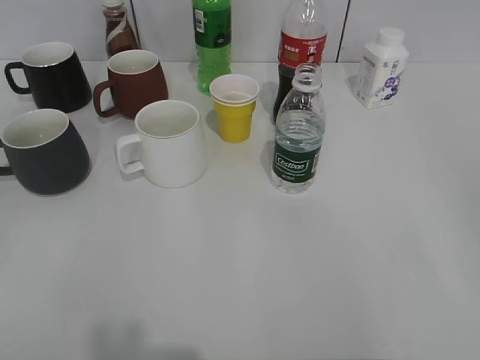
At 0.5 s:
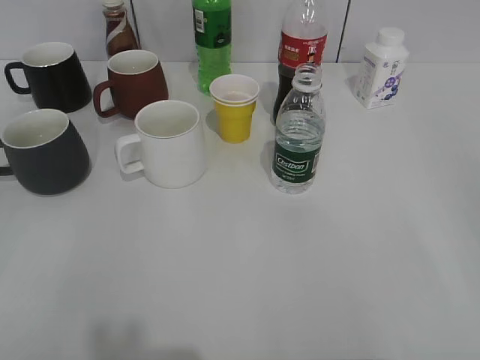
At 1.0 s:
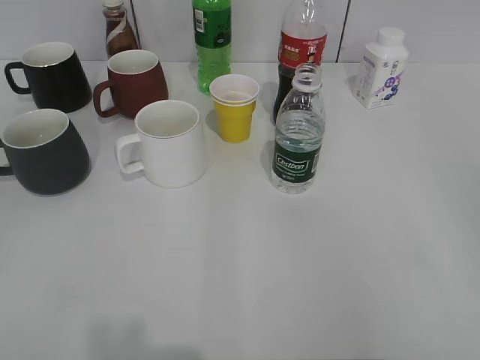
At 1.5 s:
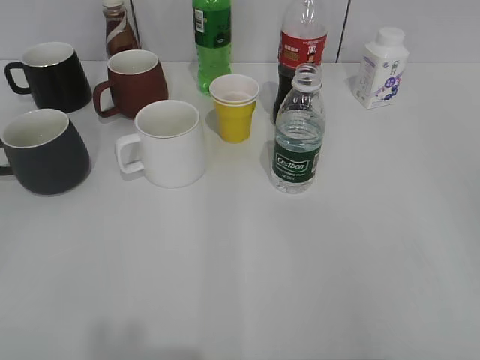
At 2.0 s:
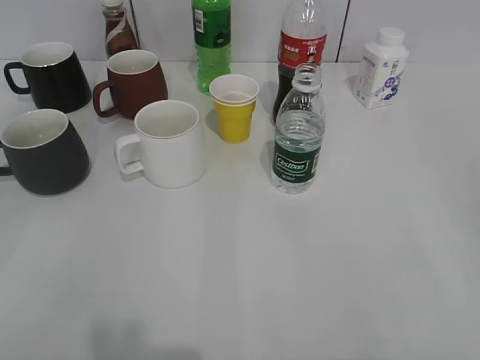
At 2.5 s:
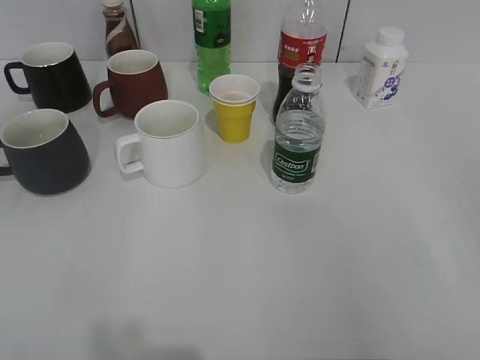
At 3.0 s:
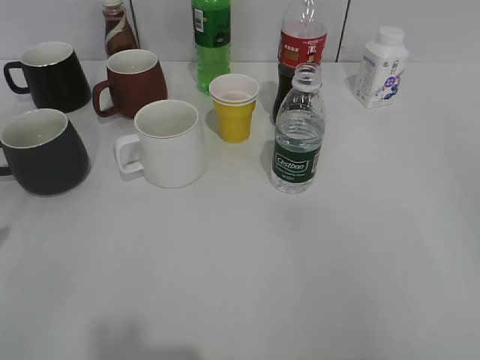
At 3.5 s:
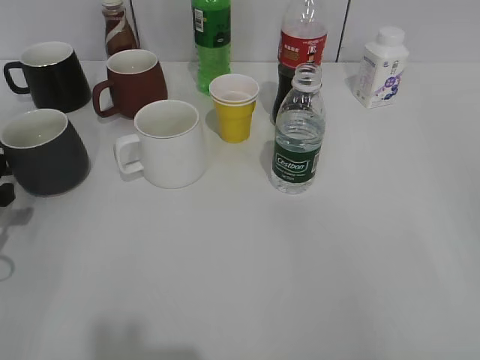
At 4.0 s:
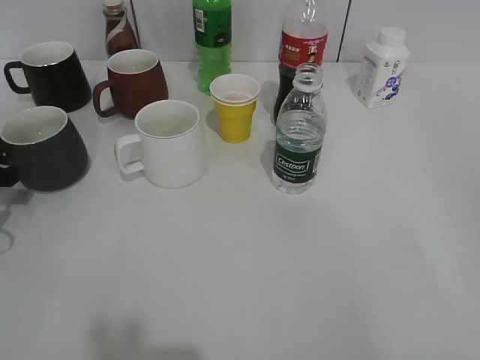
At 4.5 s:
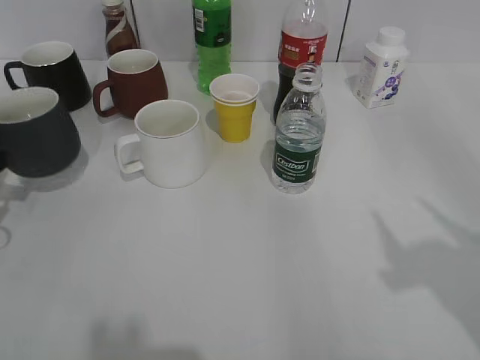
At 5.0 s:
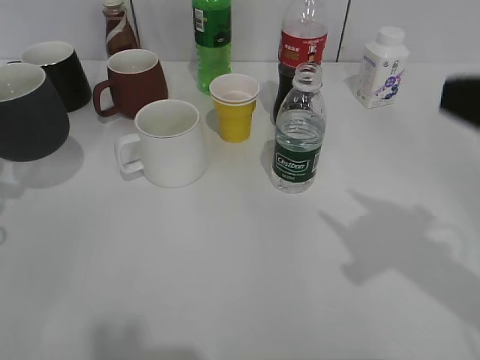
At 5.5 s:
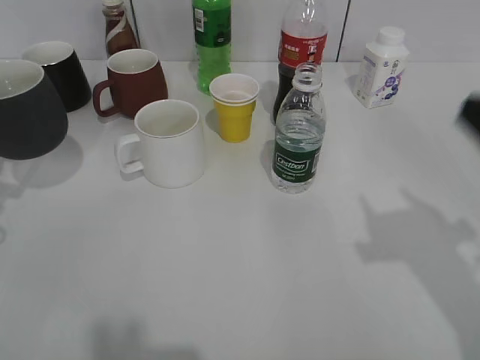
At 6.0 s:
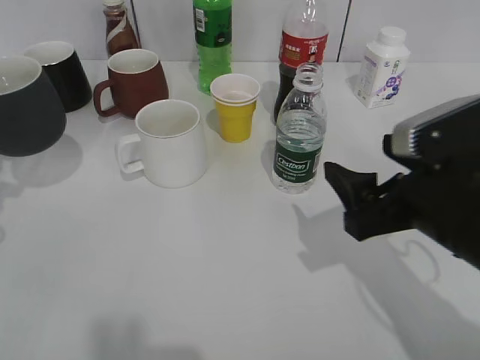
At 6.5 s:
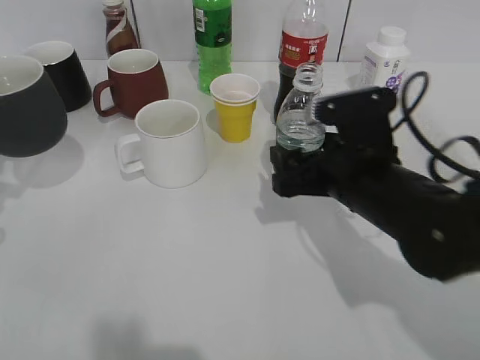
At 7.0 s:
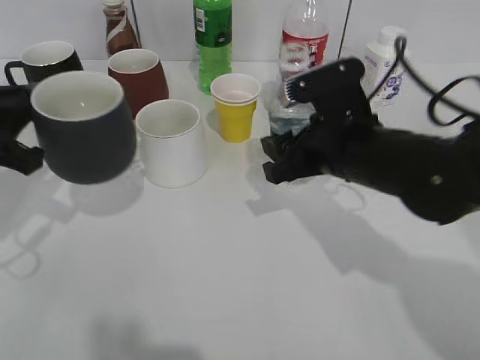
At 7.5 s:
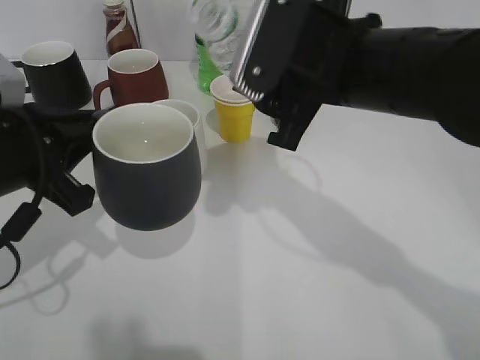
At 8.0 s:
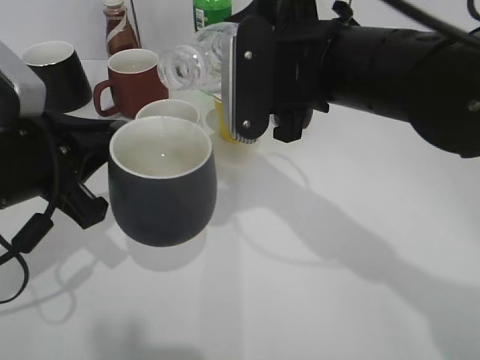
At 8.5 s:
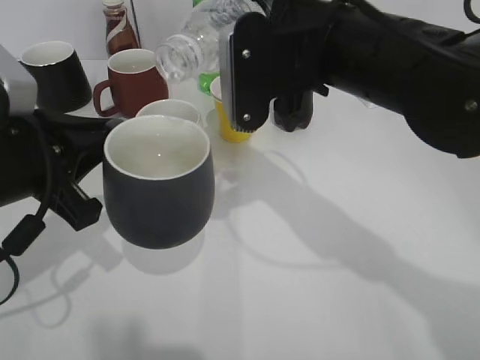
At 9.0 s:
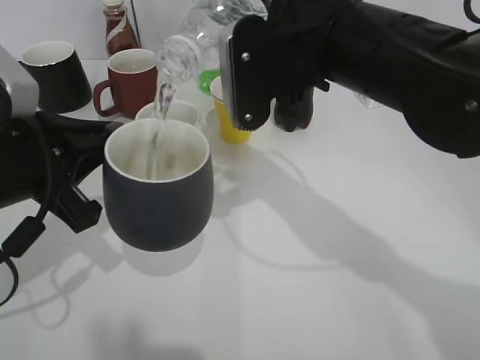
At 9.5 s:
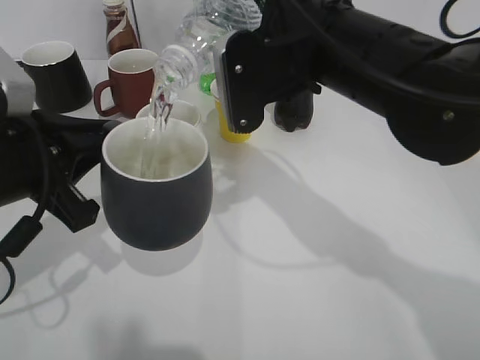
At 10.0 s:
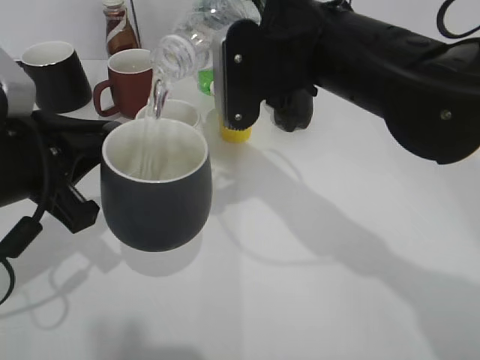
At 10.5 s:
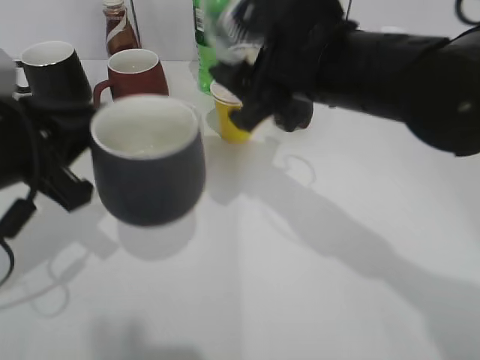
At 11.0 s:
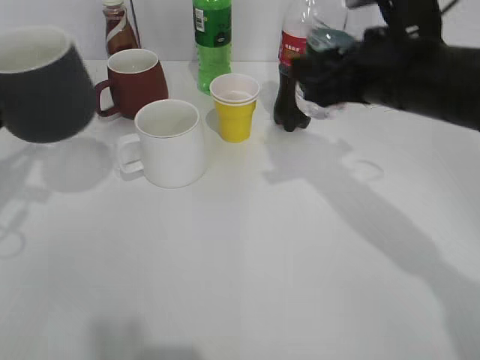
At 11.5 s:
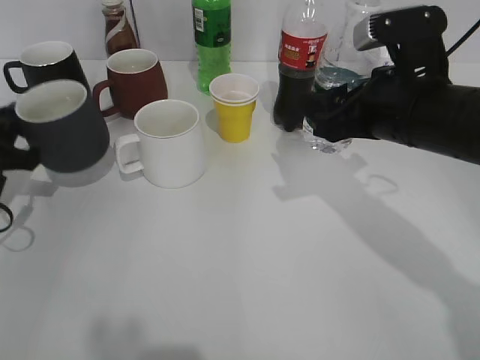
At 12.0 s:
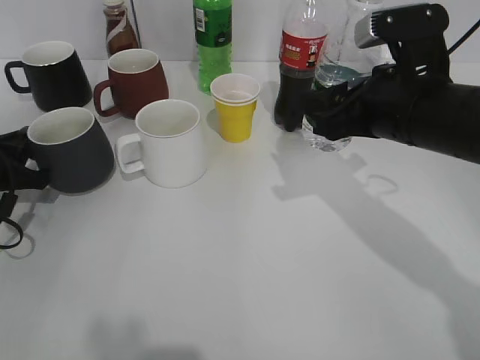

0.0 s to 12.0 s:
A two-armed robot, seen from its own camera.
Step, 2.0 to 4.0 s: Grasp the black cup with left gripper.
Step, 5.0 to 6.5 s: Grasp the bottle with water with right gripper.
Step, 7.0 to 10.5 s: Pour the water from bottle to cup with right gripper.
2.0 to 4.0 s: The left gripper travels forward and downward by approximately 30 cm.
4.0 to 6.0 s: The left gripper shifts roughly 5 cm upward; the right gripper moves forward, to the left and downward, roughly 25 cm, and closes, then opens again.
6.0 to 8.0 s: The right gripper is displaced to the left, forward and upward by about 15 cm, and closes. The left gripper heads to the right and backward, covering approximately 15 cm.
10.0 to 12.0 s: The left gripper is displaced downward, to the left and forward by about 20 cm. The right gripper goes approximately 10 cm to the right and downward.

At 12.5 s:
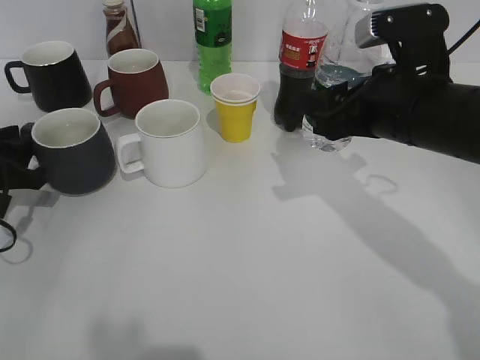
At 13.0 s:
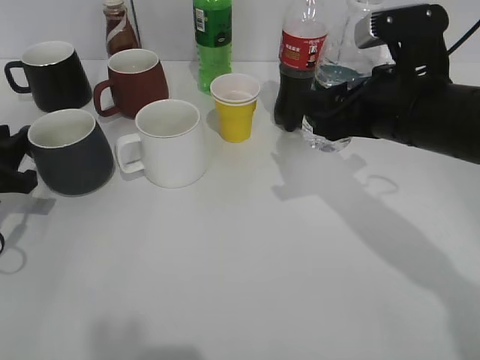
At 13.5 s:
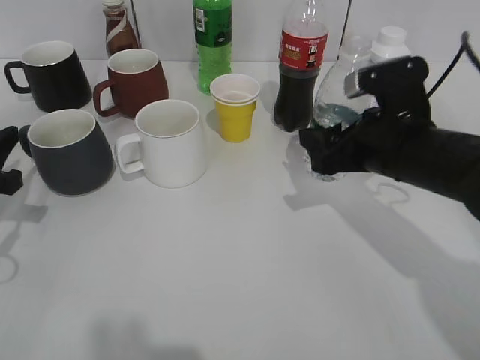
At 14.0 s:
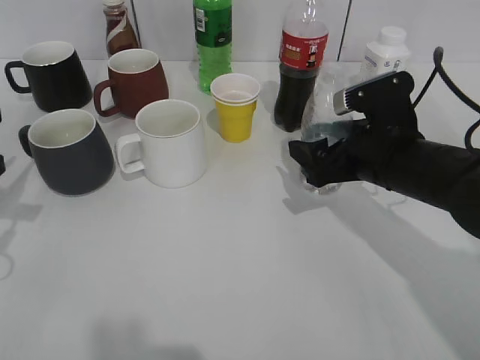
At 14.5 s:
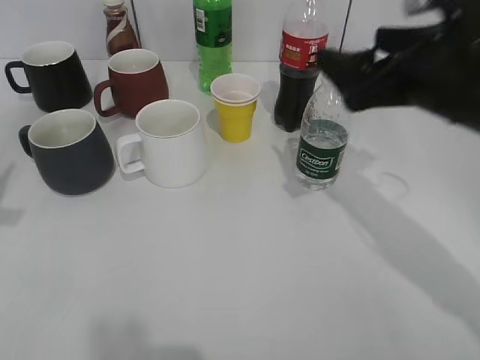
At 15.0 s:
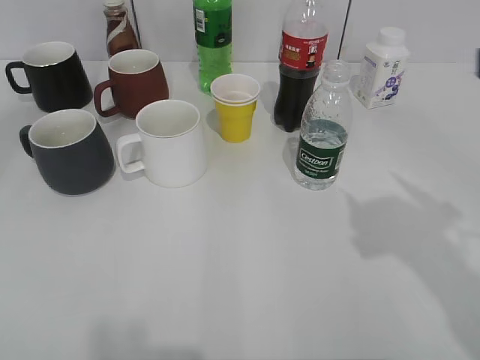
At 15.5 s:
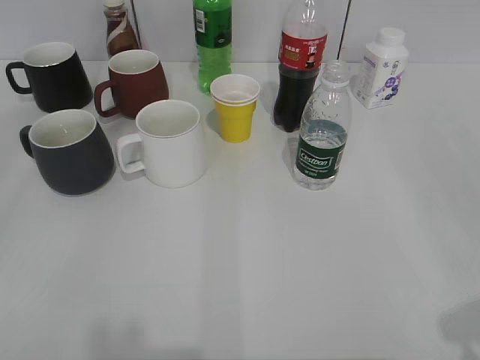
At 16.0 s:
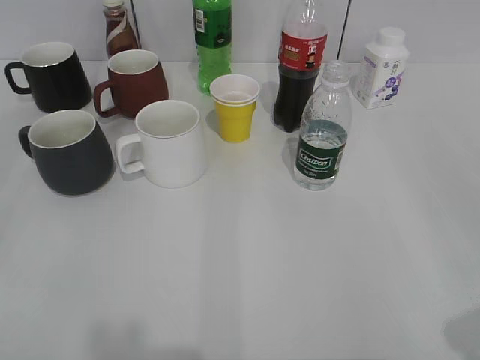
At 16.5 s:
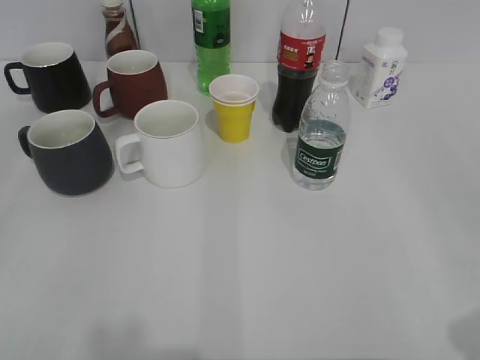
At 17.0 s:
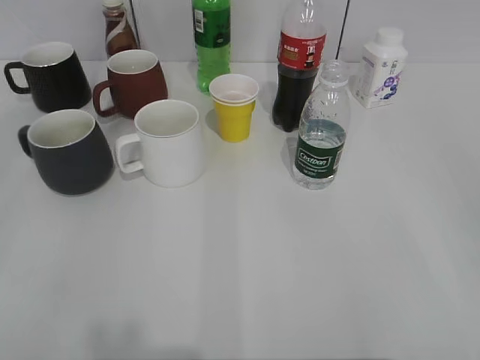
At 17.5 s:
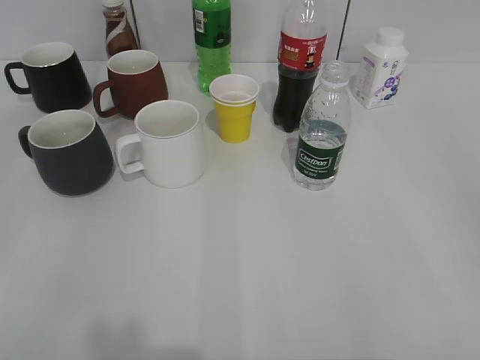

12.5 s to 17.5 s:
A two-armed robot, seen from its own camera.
Step, 13.5 to 14.0 s: Place the water bottle on the table with right gripper.
12.5 to 15.0 s: The right gripper heads backward, upward and to the right, covering about 20 cm, and opens. The left gripper goes about 30 cm upward and backward, and opens up.
15.0 to 17.5 s: The right gripper moves backward and to the right, roughly 15 cm, and closes up, while the left gripper travels backward and downward by some 10 cm.

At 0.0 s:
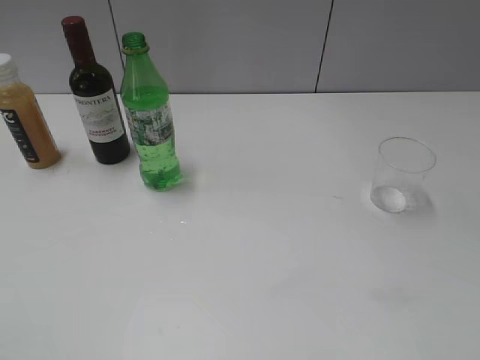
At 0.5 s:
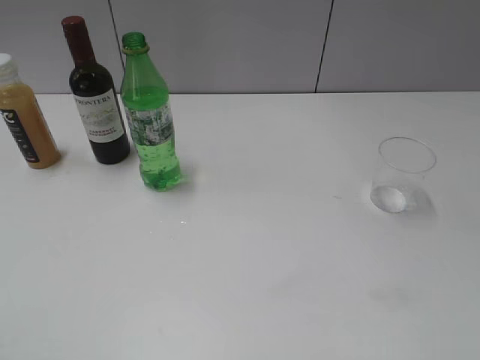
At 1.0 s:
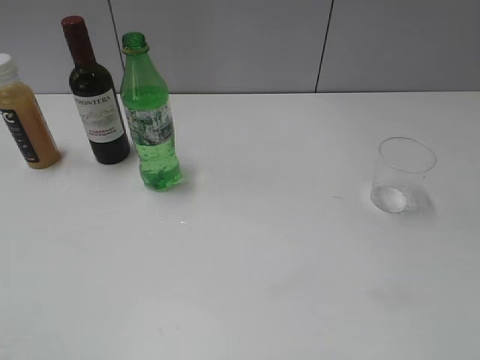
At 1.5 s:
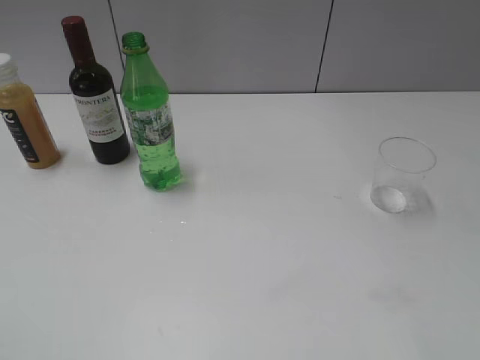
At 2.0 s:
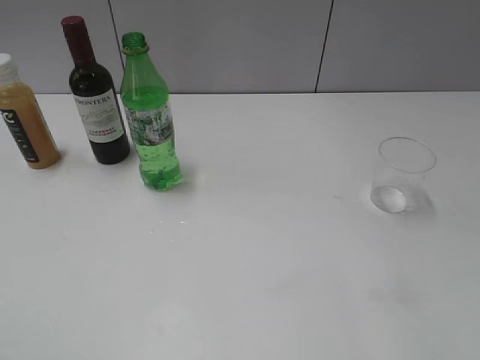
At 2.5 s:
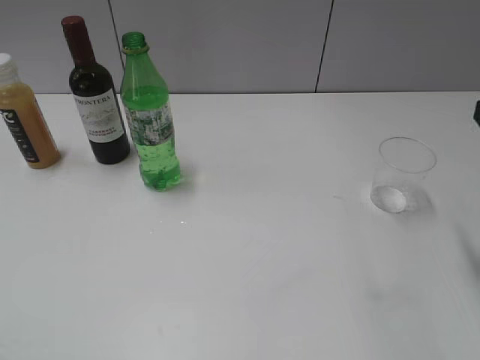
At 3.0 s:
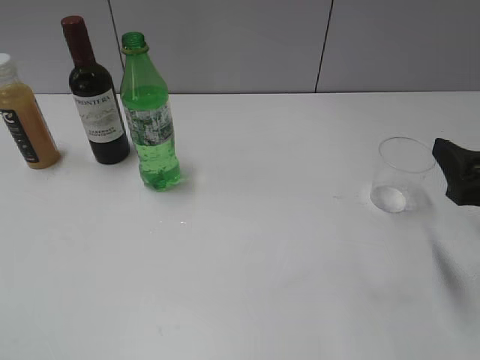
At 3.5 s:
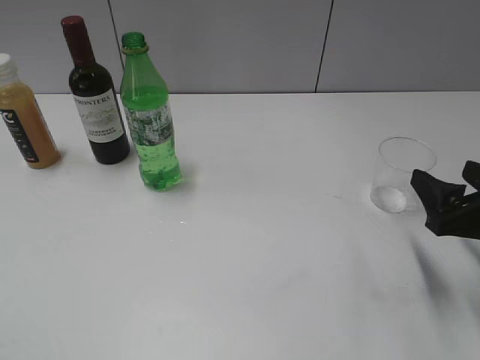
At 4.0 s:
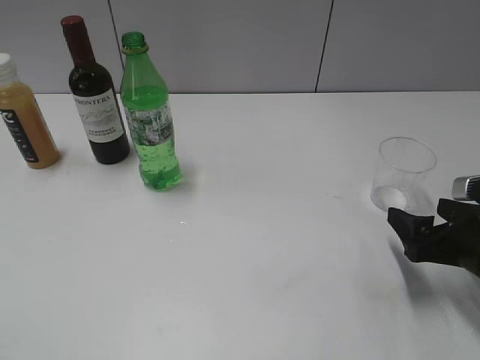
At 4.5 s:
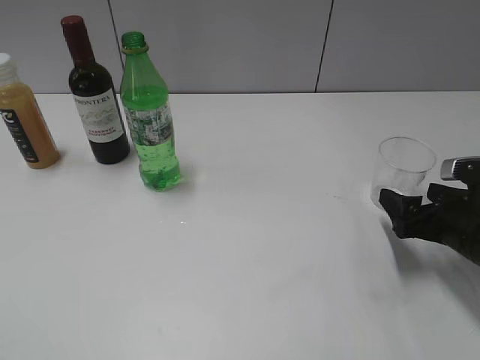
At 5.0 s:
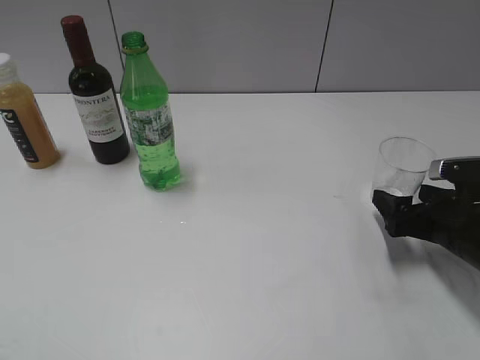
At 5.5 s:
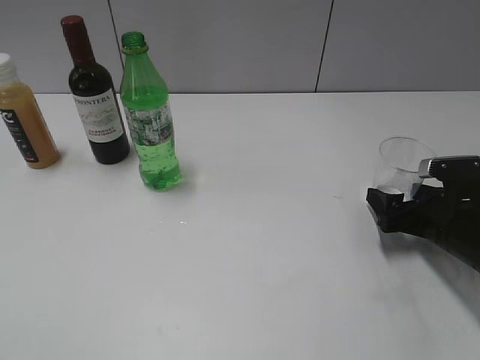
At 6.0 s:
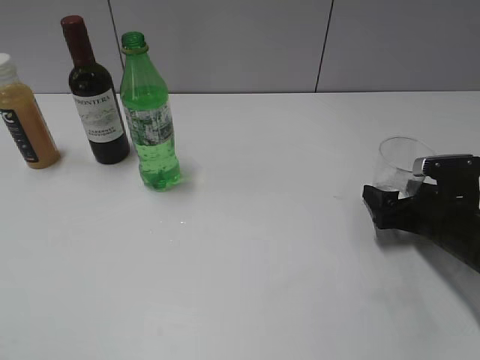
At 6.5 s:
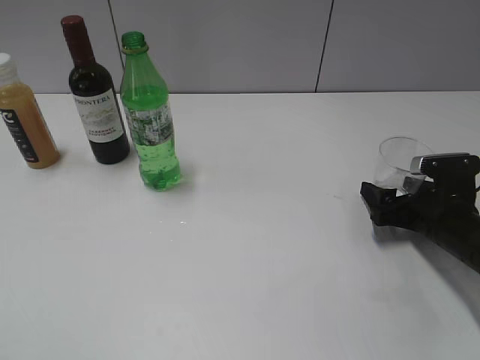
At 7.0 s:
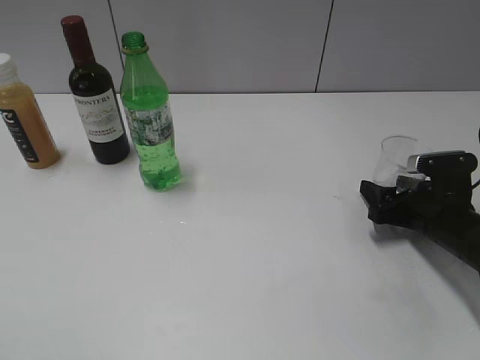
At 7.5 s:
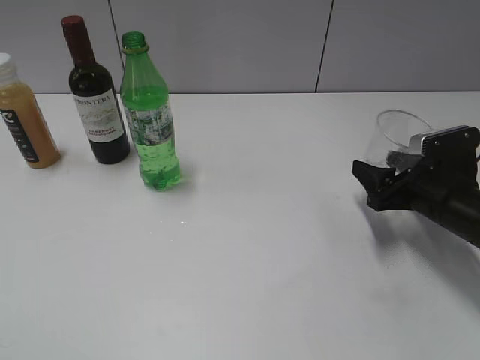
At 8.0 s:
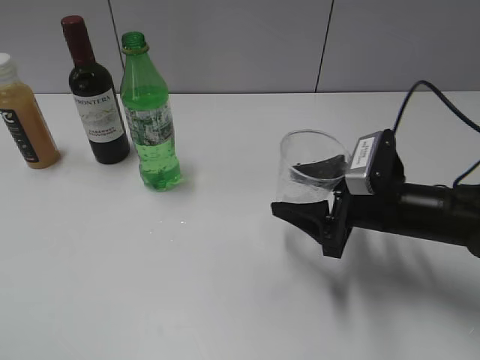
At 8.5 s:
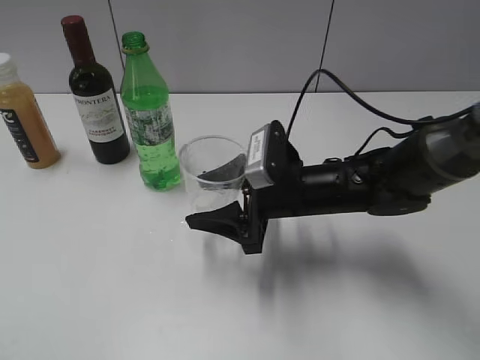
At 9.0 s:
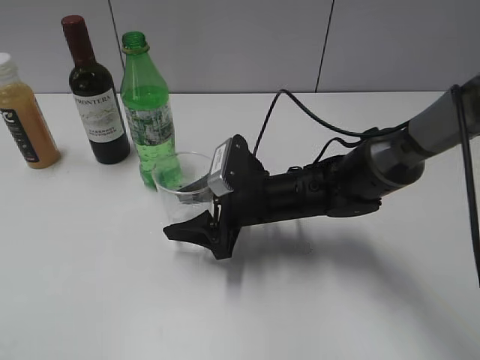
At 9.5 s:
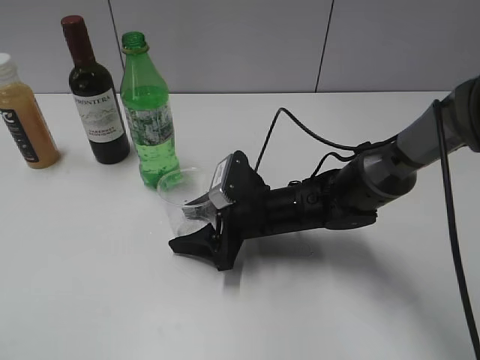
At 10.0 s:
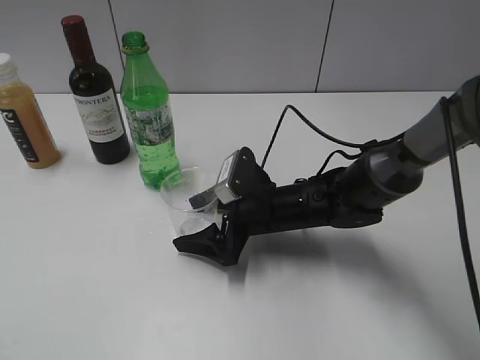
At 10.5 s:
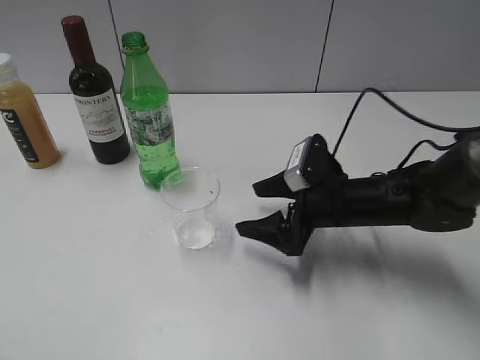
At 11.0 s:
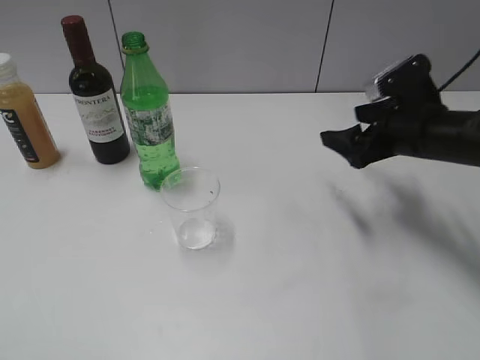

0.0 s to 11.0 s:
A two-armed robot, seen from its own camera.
Step, 1.0 to 7.0 s: Grasp the transparent cup with right gripper.
Step, 7.5 to 10.0 s: Place the transparent cup on the table with right gripper.
2.0 to 3.5 s: The right gripper moves downward and forward, roughly 20 cm.
3.5 to 5.5 s: The right gripper travels downward and forward by some 10 cm, and opens.
5.5 to 7.5 s: The right gripper closes.
7.5 to 9.0 s: The right gripper shifts about 20 cm to the left.
9.0 to 11.0 s: The right gripper is displaced to the right and upward by approximately 20 cm, and opens up.
